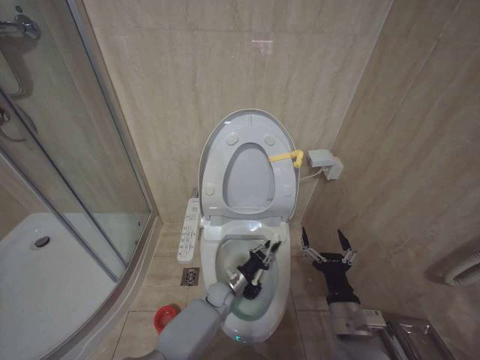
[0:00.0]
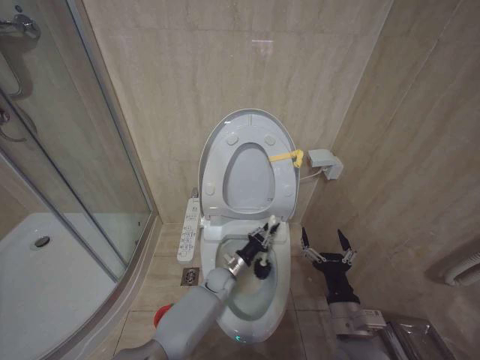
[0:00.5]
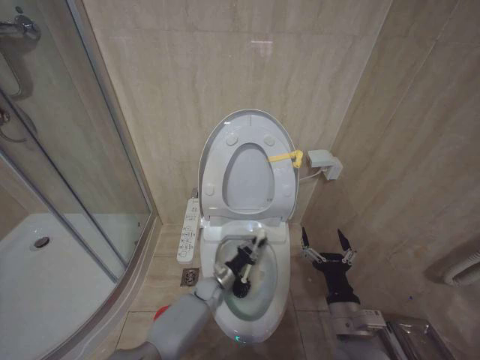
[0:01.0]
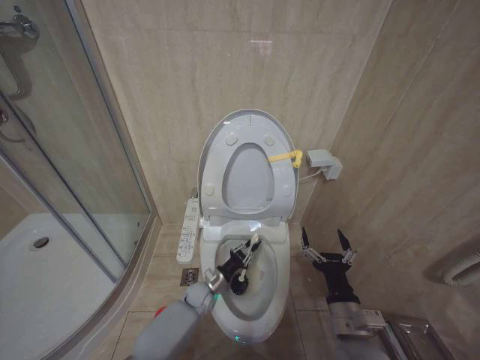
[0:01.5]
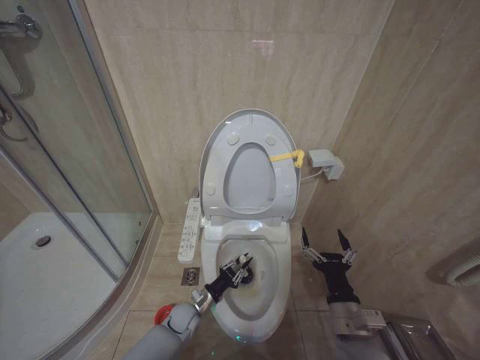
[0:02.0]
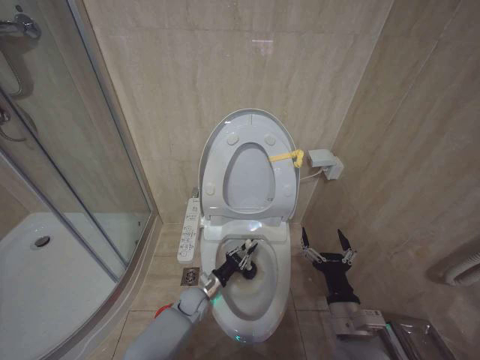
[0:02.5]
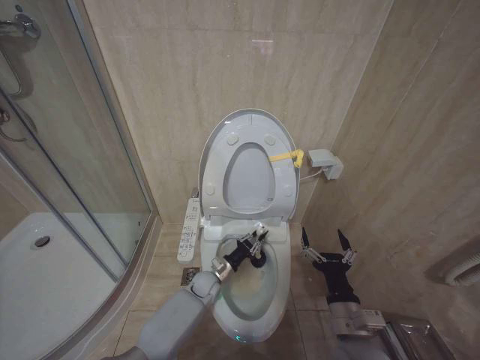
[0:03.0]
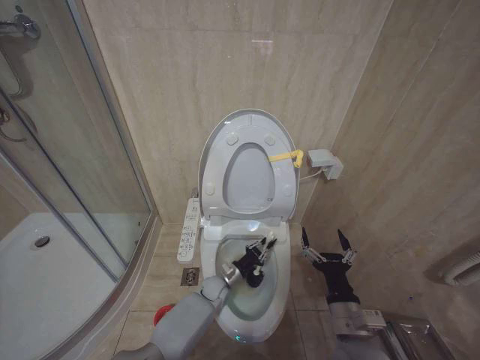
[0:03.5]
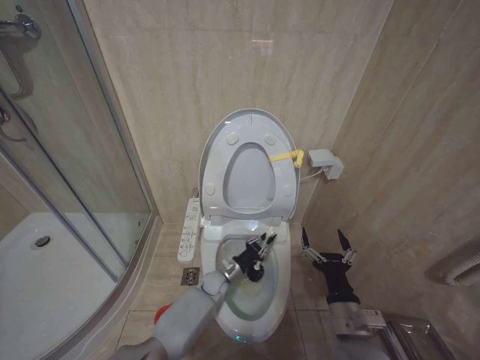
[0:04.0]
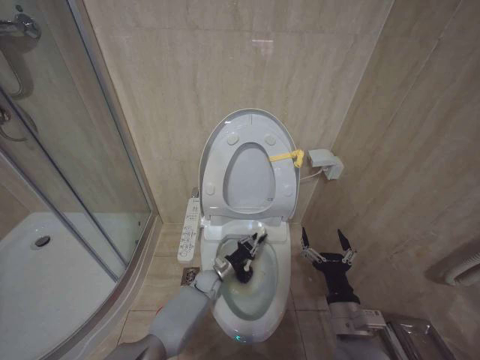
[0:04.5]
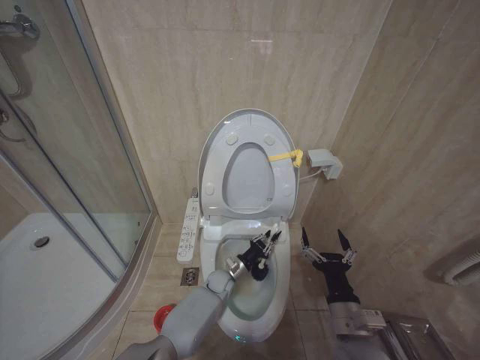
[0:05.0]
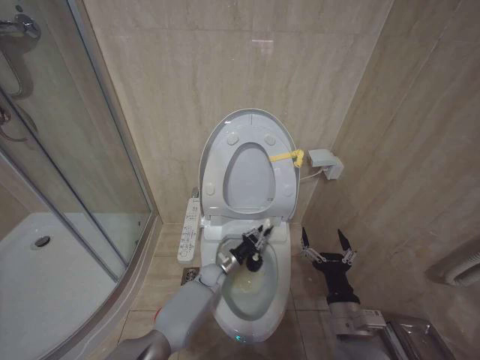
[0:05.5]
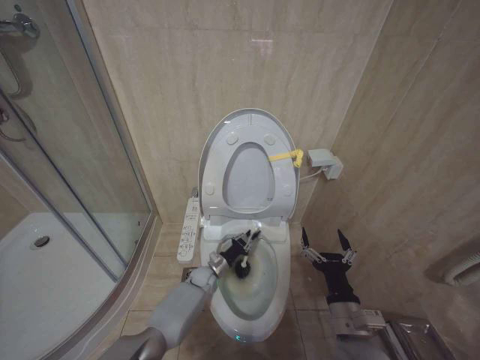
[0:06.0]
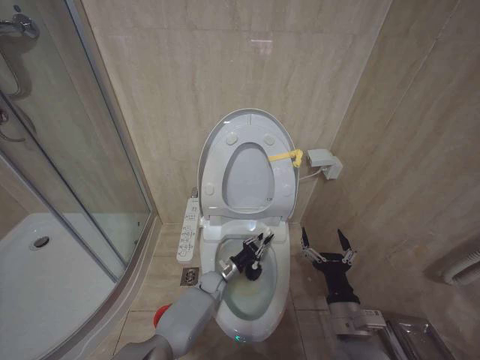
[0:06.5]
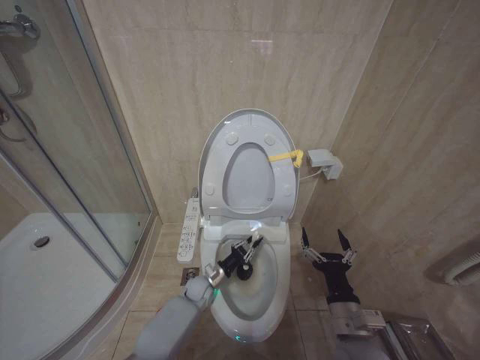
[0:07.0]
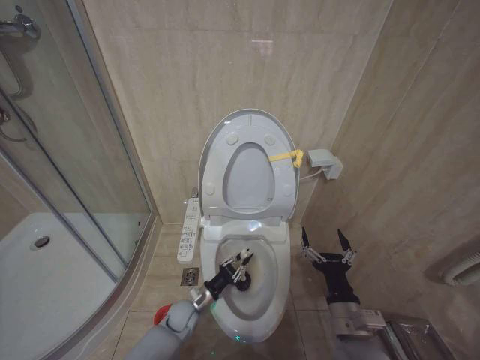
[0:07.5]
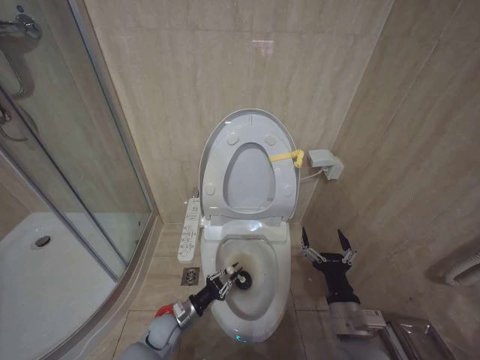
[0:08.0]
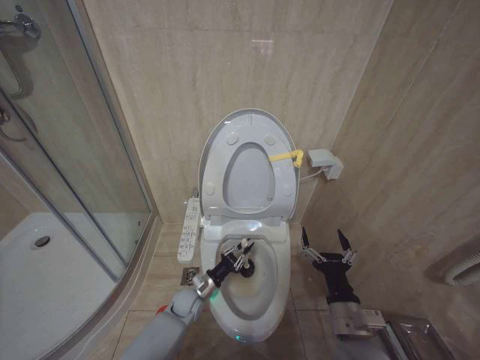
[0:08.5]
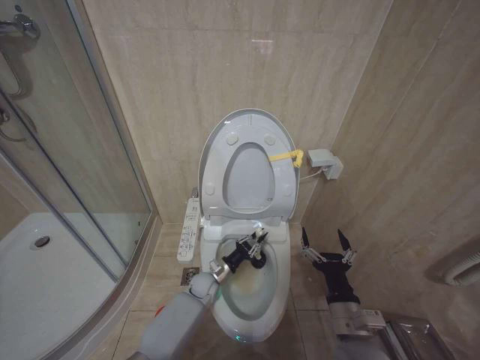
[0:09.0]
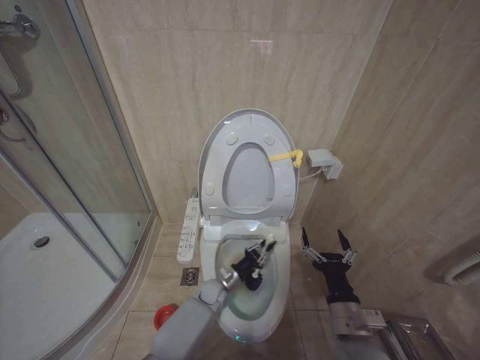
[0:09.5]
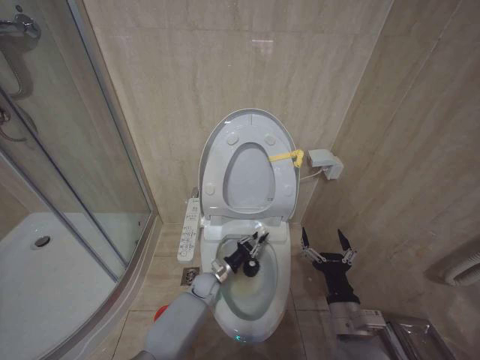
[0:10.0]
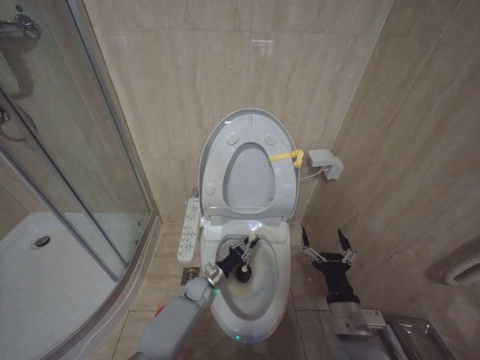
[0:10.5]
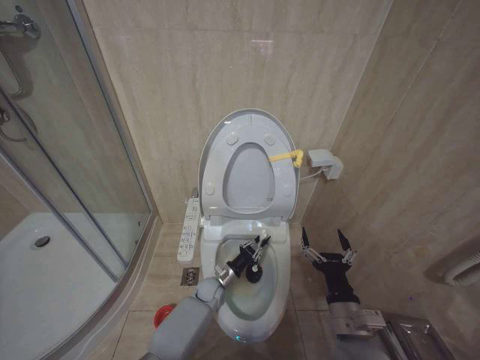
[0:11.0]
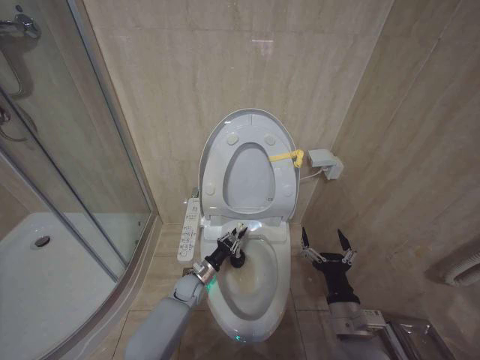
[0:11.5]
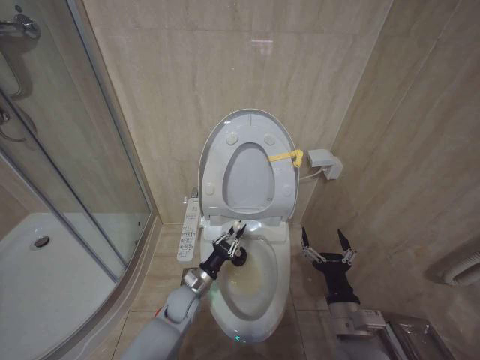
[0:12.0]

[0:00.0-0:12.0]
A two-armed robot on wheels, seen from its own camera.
Task of the whole recording: Open the toilet lid, clean the toilet bowl with a toilet brush, close the toilet lid, and flush.
0:00.0 to 0:02.0: The left gripper shifts roughly 10 cm to the left.
0:02.0 to 0:04.0: The left gripper travels forward and to the right by some 10 cm.
0:04.0 to 0:06.0: The grippers stay close to where they were, moving slightly.
0:06.0 to 0:08.0: The left gripper travels backward and to the left by about 20 cm.
0:08.0 to 0:10.0: The left gripper goes about 15 cm forward and to the right.
0:10.0 to 0:12.0: The left gripper shifts roughly 10 cm backward and upward.

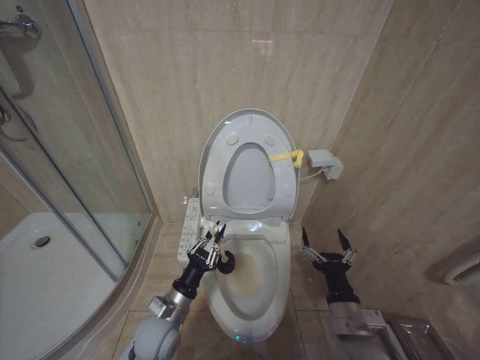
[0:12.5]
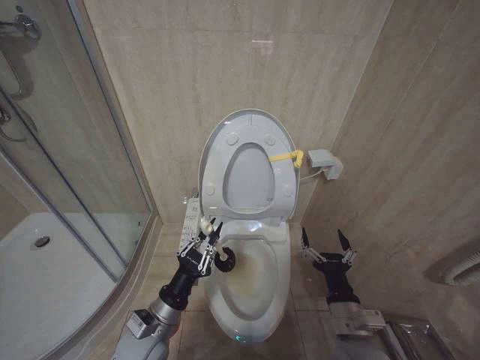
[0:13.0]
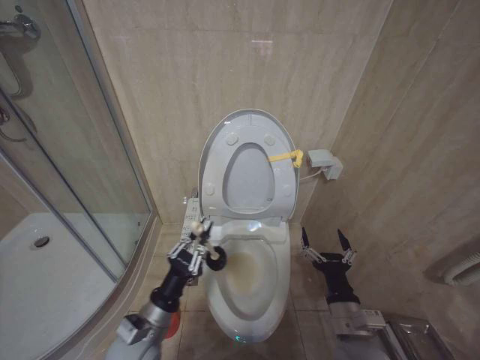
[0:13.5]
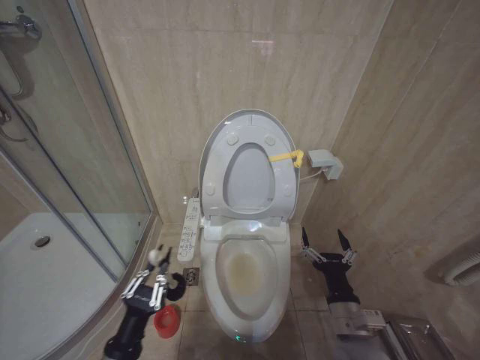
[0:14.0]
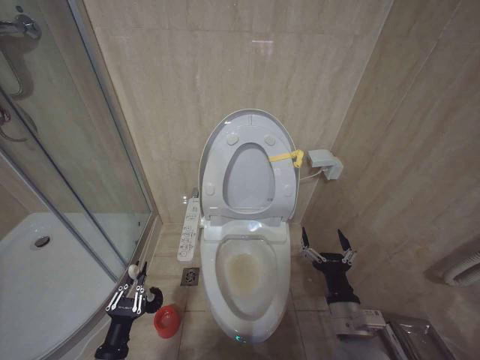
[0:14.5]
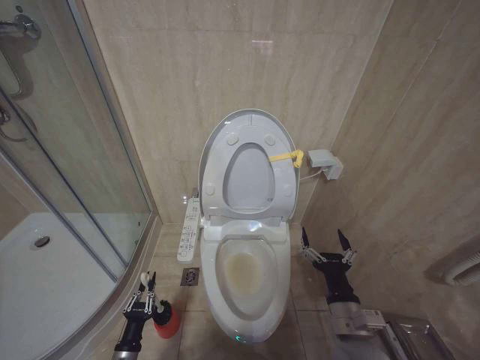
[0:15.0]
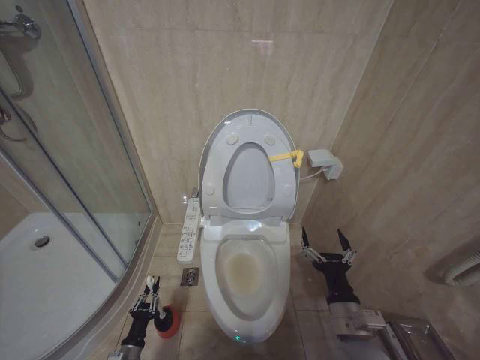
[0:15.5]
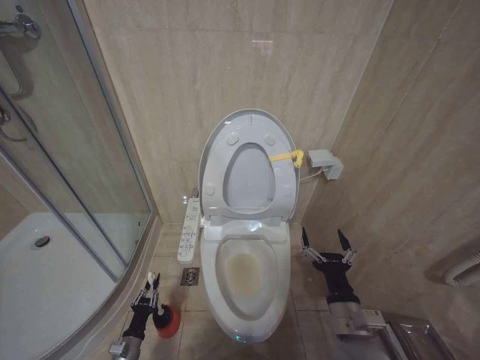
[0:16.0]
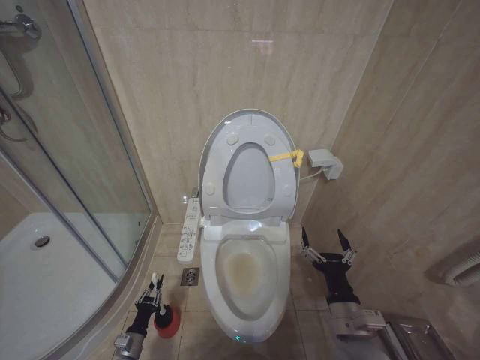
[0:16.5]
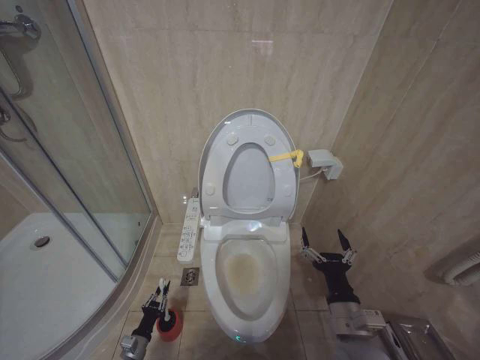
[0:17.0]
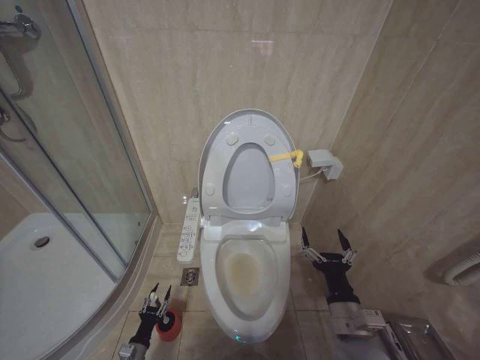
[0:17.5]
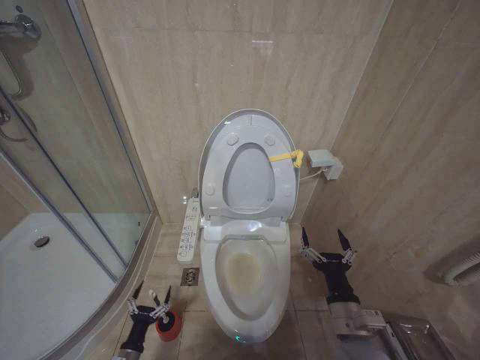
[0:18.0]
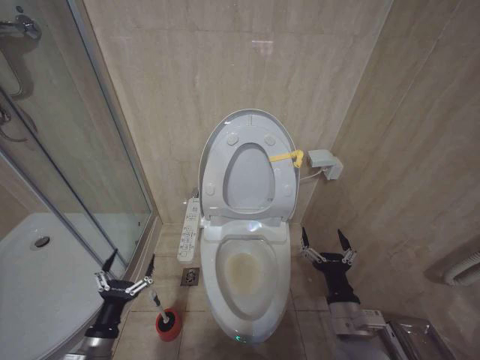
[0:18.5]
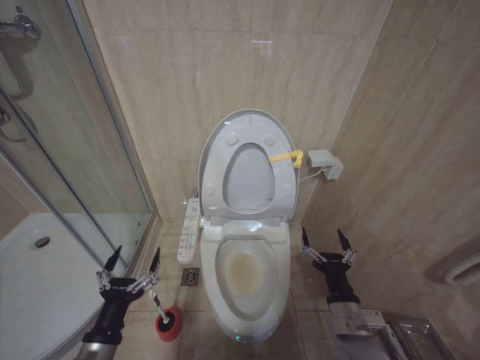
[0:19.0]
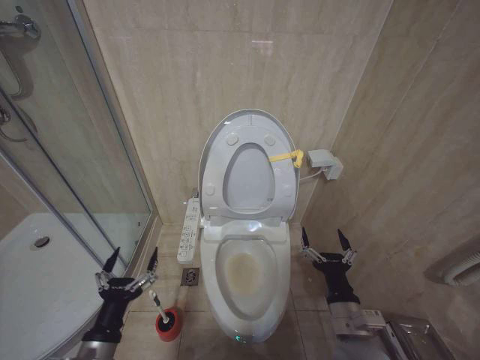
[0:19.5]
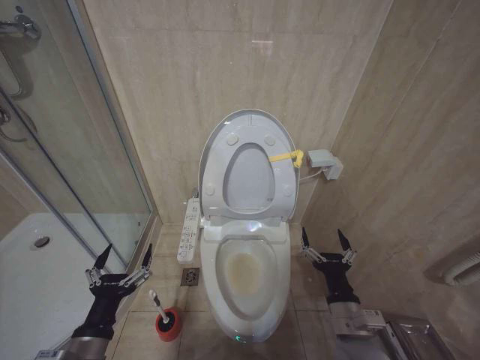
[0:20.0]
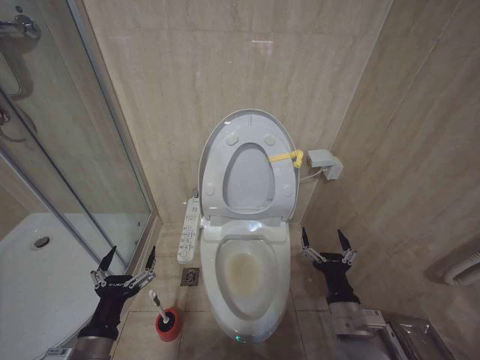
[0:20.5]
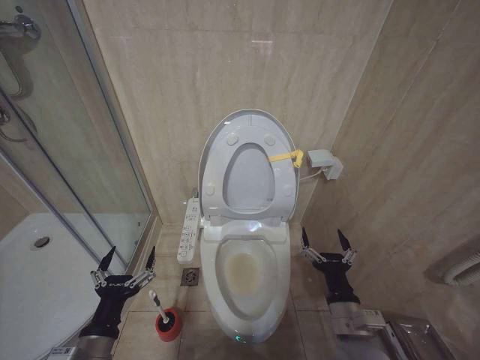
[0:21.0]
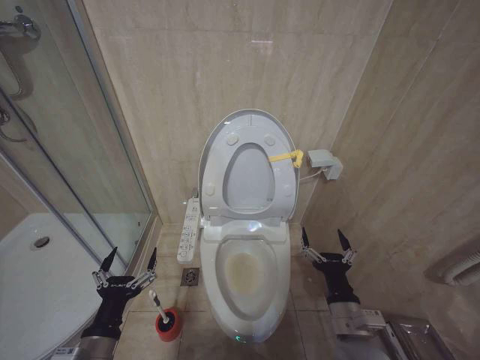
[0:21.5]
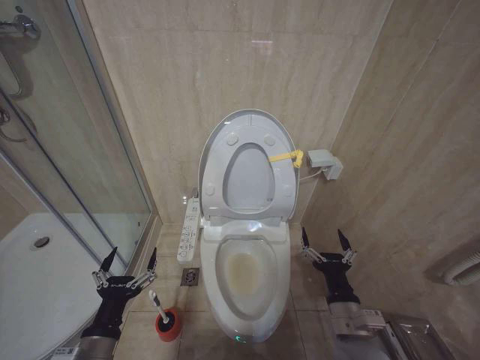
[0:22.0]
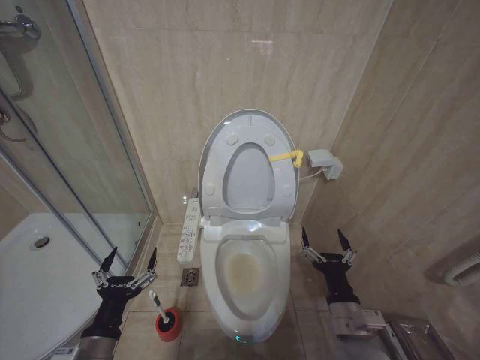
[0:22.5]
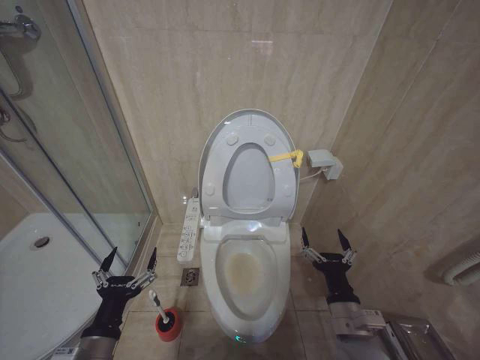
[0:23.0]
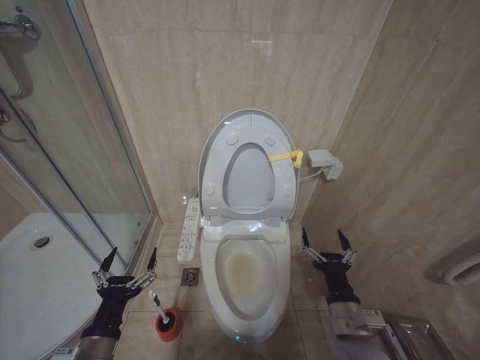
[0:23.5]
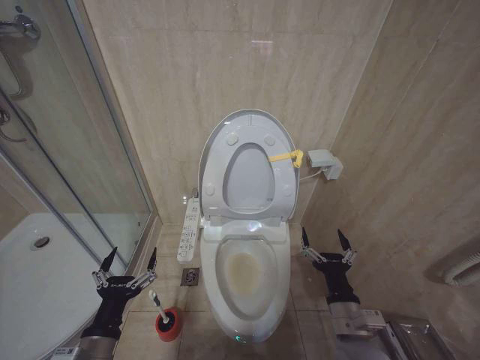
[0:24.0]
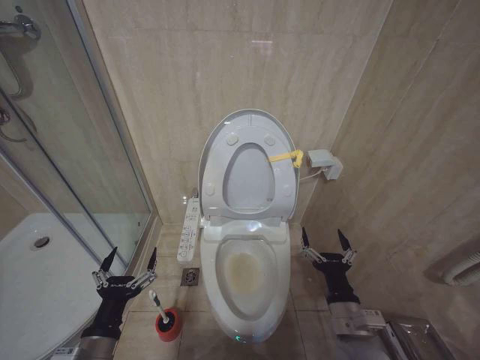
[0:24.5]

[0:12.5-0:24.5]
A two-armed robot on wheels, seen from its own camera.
Task of the whole recording: Open the toilet lid, clean the toilet bowl with a toilet brush, close the toilet lid, and flush.
0:12.5 to 0:14.5: The left gripper shifts roughly 15 cm backward and to the left.
0:14.5 to 0:16.5: The left gripper travels downward and forward by about 20 cm.
0:16.5 to 0:18.5: The left gripper heads upward, covering approximately 20 cm, and opens up.
0:18.5 to 0:20.5: The left gripper moves upward, roughly 10 cm.
0:20.5 to 0:24.5: Both grippers stay put.

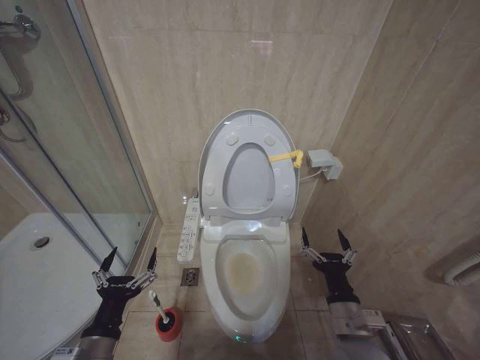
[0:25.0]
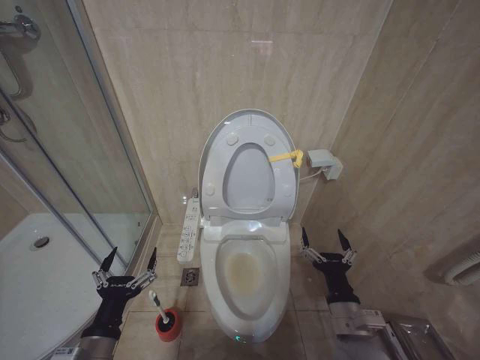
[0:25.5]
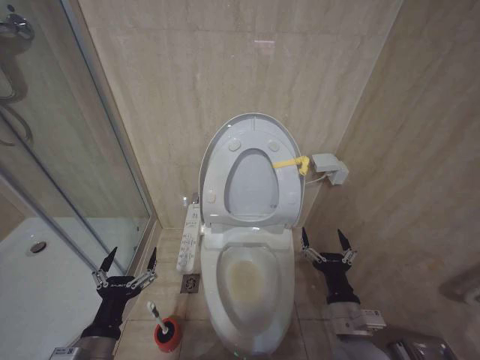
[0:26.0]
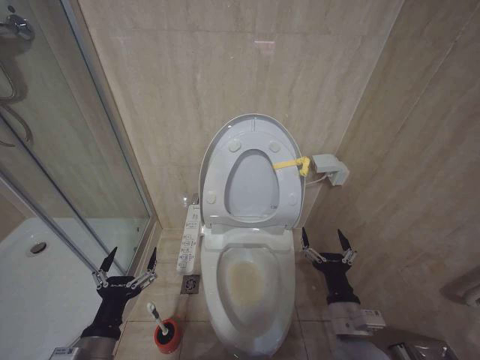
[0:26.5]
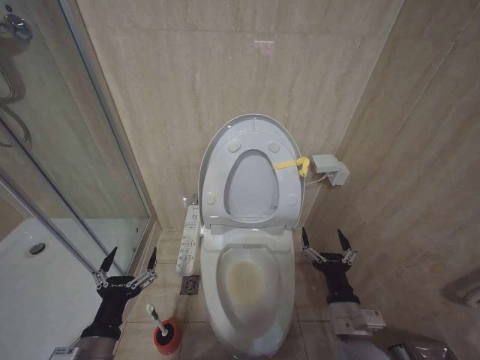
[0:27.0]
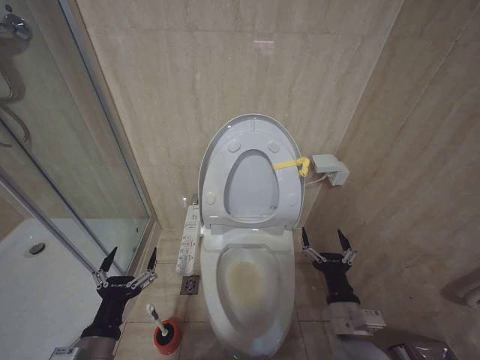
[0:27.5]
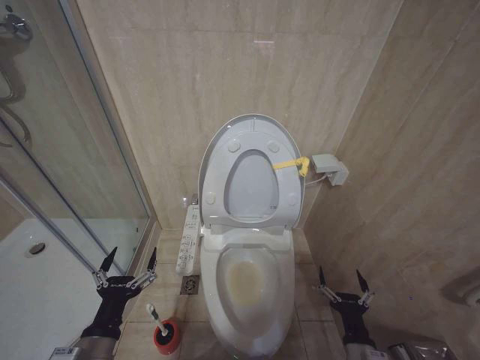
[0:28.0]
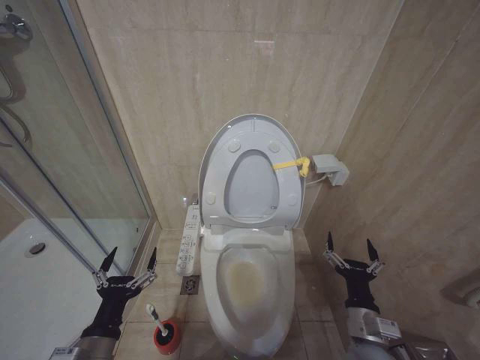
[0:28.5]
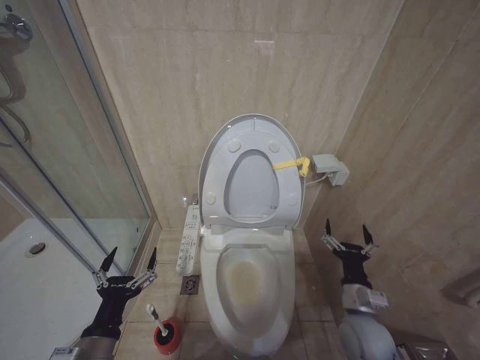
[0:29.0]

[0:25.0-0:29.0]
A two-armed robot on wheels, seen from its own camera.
Task of the whole recording: Open the toilet lid, clean the toilet bowl with a toilet brush, close the toilet lid, and flush.
0:25.0 to 0:27.0: The two grippers keep their place.
0:27.0 to 0:29.0: The right gripper travels downward and back again, approximately 10 cm each way.
